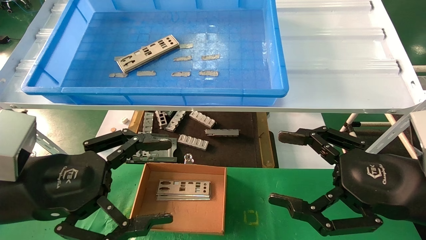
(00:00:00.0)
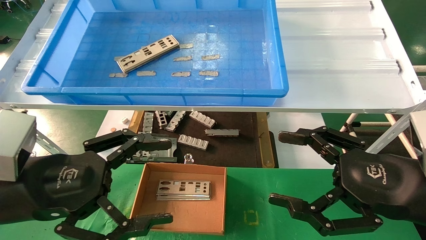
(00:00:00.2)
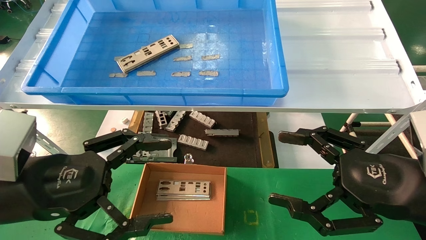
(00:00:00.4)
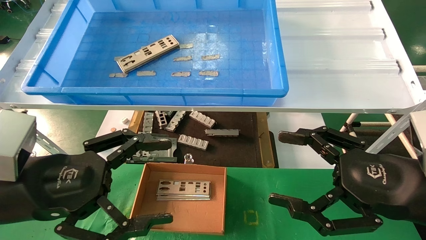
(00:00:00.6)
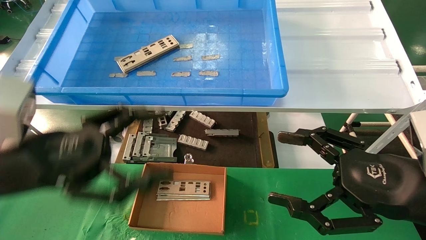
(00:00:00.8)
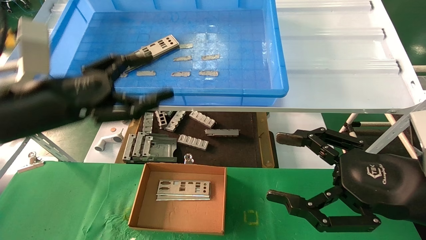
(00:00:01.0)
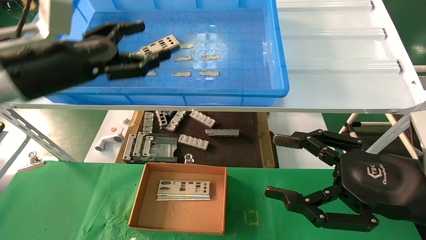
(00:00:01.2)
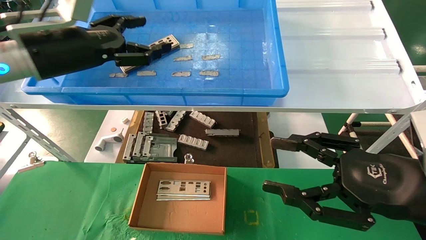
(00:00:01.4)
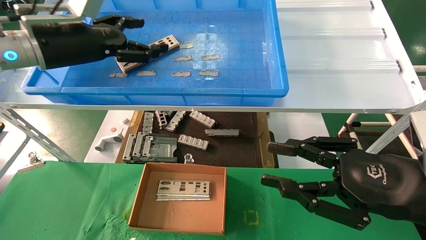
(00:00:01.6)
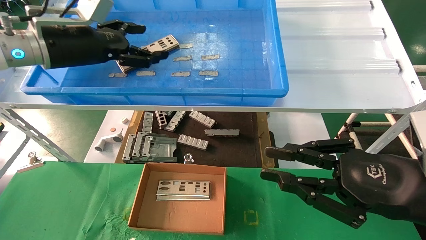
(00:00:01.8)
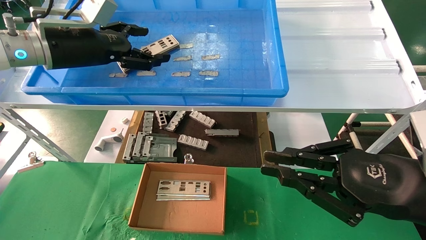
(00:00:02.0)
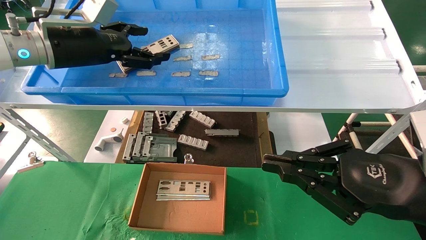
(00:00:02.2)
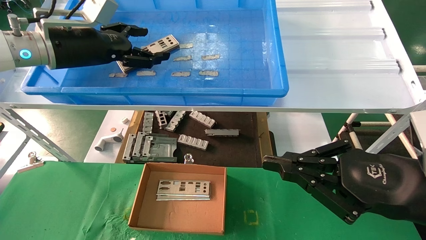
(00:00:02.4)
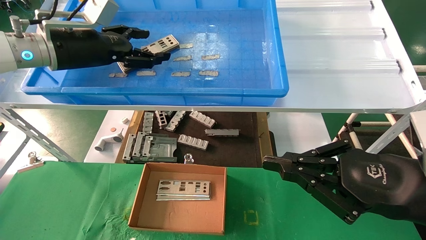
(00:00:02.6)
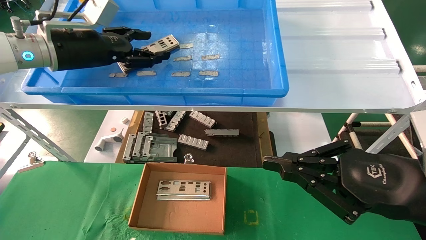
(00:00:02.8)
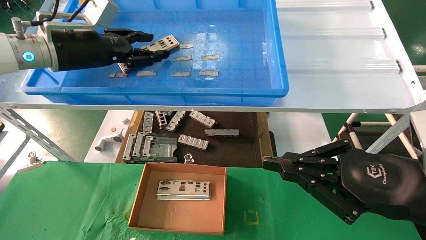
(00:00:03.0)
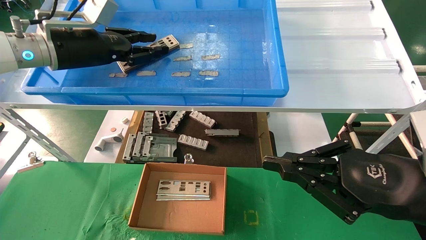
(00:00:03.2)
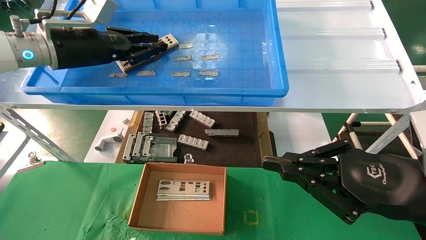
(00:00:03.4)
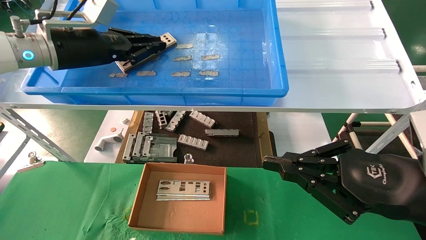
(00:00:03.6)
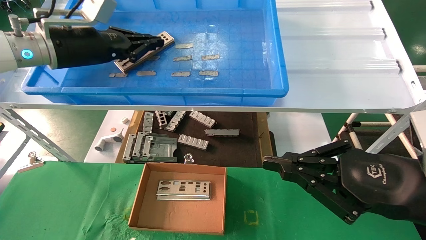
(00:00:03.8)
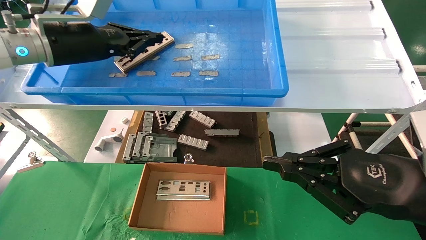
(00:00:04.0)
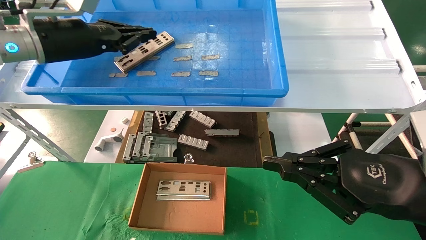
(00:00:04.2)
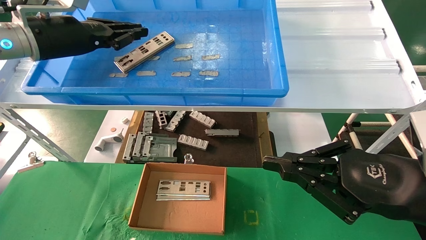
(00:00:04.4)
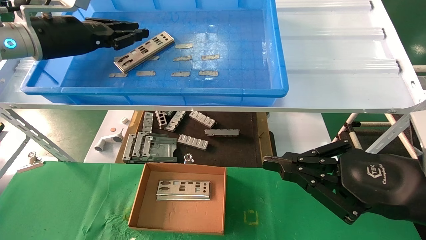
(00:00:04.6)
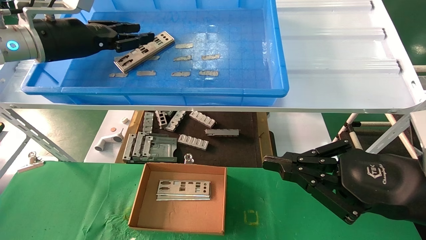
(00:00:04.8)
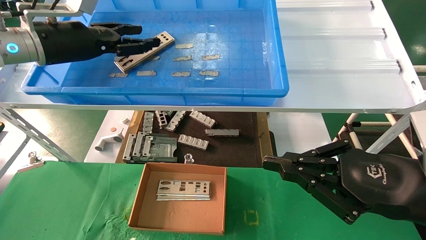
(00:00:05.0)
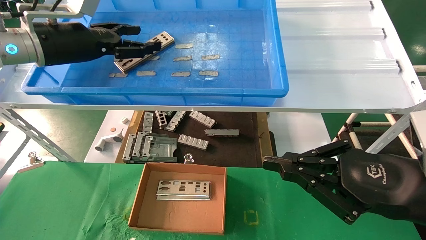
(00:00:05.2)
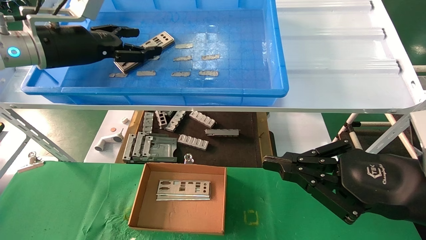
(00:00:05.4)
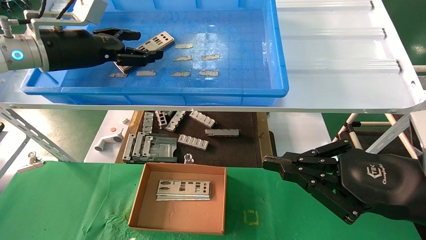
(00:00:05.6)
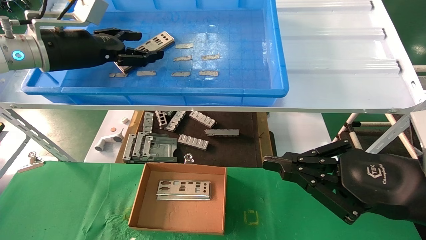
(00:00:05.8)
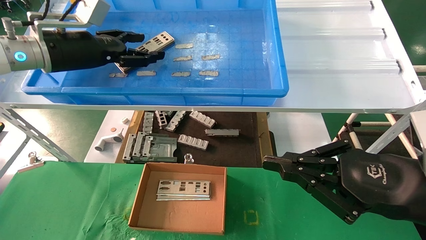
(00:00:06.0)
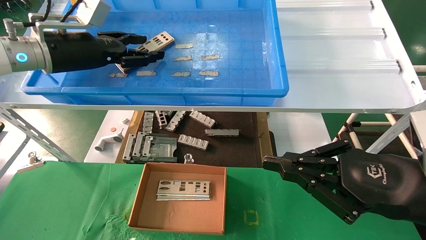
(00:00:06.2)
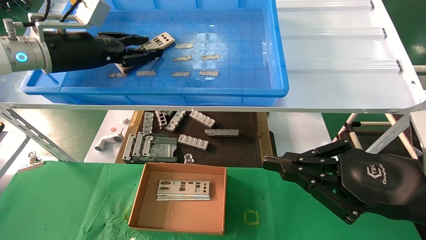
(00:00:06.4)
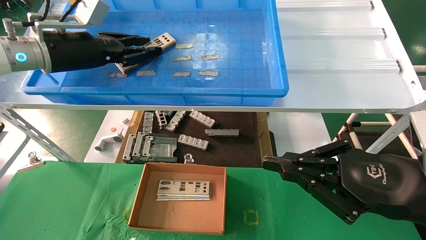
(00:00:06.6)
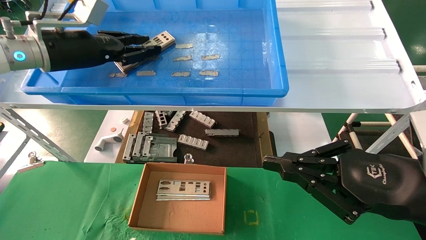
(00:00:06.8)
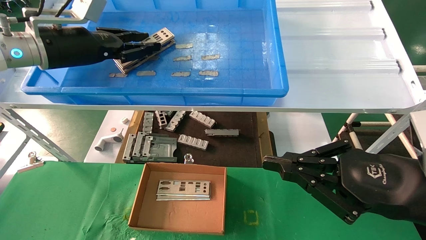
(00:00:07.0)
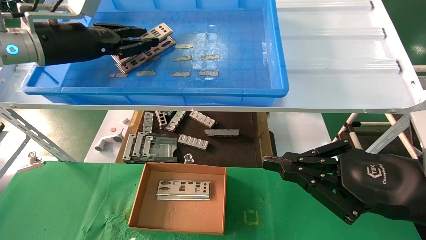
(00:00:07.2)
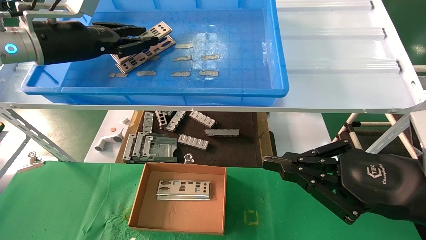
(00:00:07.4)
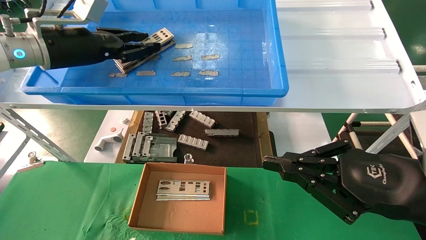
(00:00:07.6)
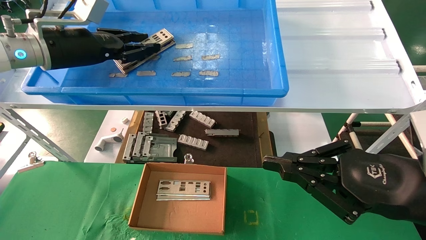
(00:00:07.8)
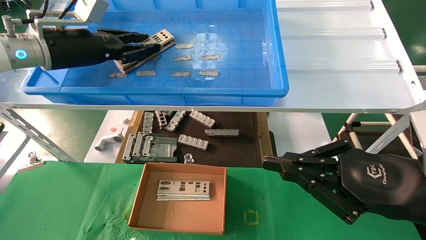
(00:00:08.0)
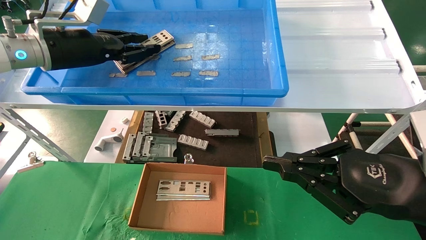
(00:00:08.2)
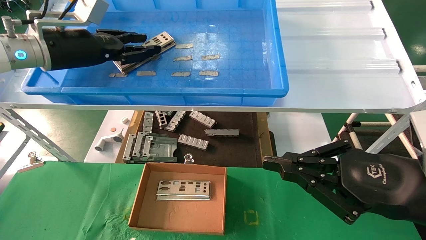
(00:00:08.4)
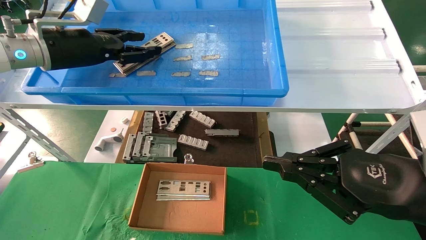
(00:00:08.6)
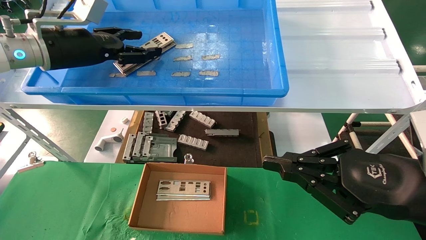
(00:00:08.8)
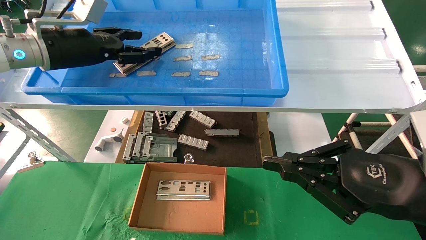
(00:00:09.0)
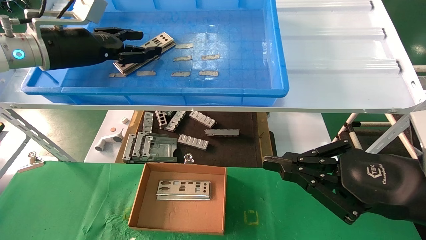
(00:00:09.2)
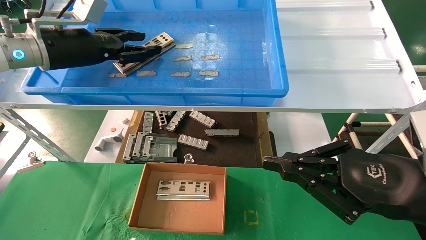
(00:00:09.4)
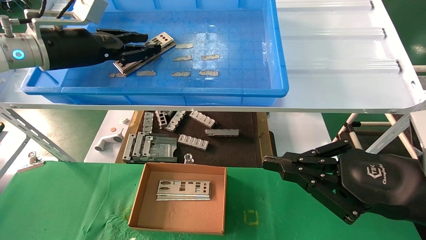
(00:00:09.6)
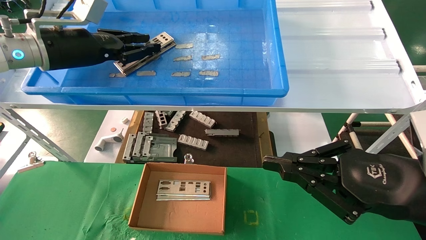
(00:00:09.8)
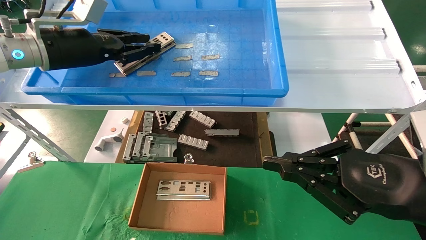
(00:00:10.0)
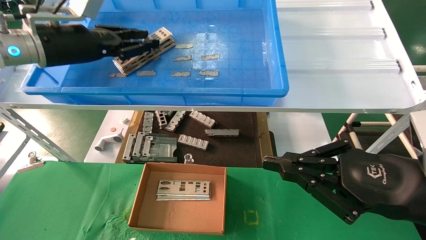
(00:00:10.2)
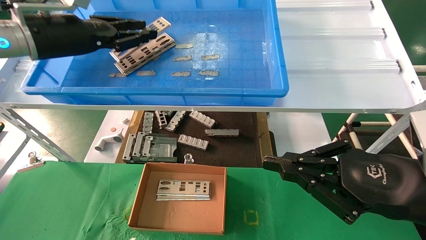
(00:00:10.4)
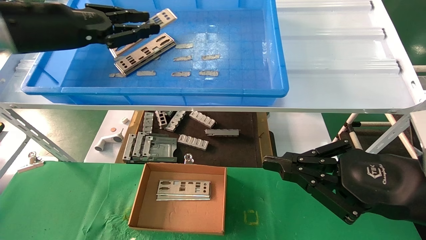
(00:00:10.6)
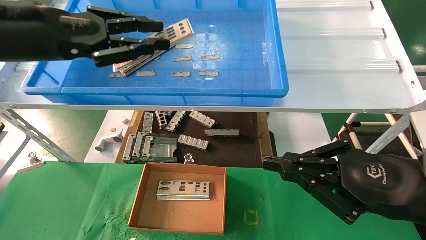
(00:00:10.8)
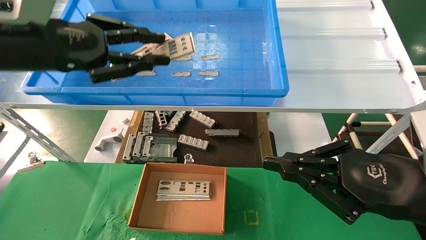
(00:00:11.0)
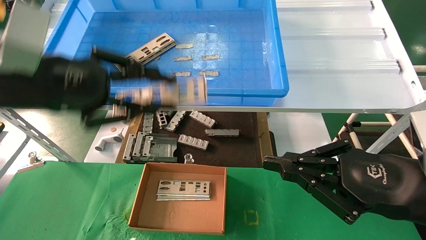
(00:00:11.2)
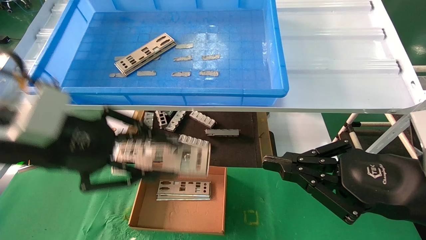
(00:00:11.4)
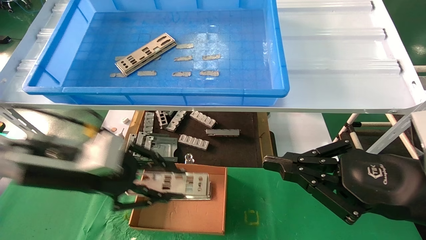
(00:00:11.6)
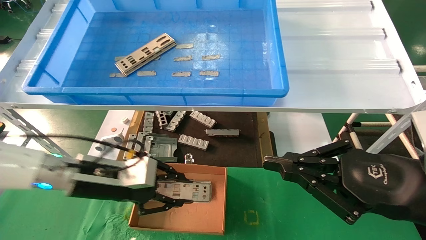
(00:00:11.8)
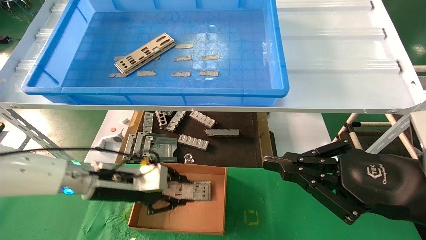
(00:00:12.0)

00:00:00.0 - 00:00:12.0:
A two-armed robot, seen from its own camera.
Task of the whole recording: pick up the parts on the tray and put them in the cardboard box.
Step, 00:00:01.0 - 00:00:10.0: Pick up the IO bracket from the container box.
00:00:00.0 - 00:00:01.6: The right gripper closes; the left gripper goes approximately 25 cm forward and upward.
00:00:01.6 - 00:00:03.0: The right gripper closes.
00:00:03.0 - 00:00:04.4: The left gripper closes up.
00:00:04.4 - 00:00:06.0: The left gripper opens its fingers.
00:00:06.0 - 00:00:07.6: The left gripper closes up.
00:00:07.6 - 00:00:09.0: The left gripper opens up.
00:00:09.0 - 00:00:10.4: The left gripper closes.
00:00:10.4 - 00:00:12.0: The left gripper heads downward, covering about 25 cm.

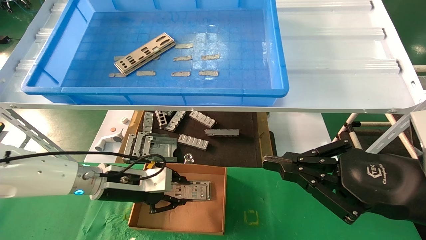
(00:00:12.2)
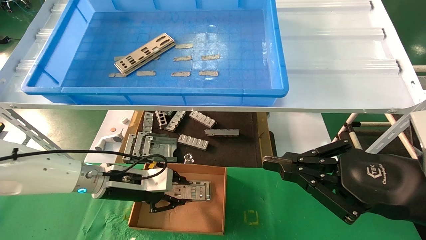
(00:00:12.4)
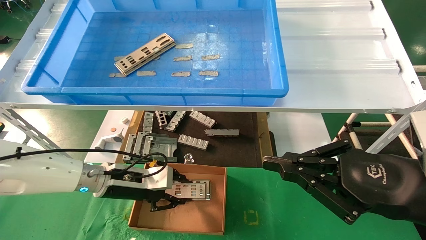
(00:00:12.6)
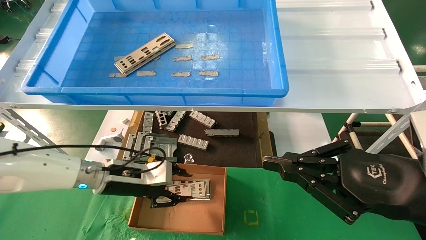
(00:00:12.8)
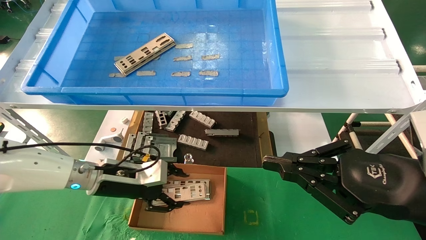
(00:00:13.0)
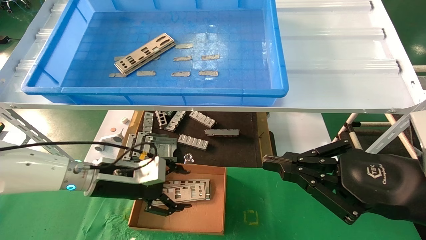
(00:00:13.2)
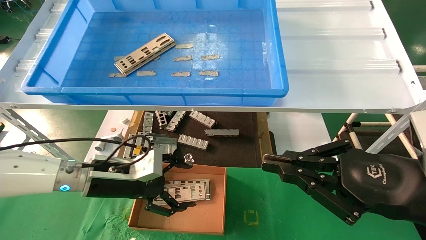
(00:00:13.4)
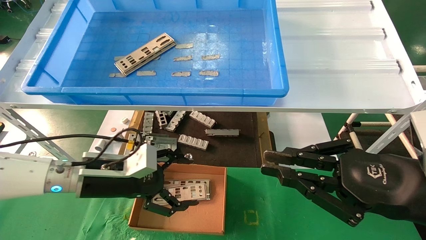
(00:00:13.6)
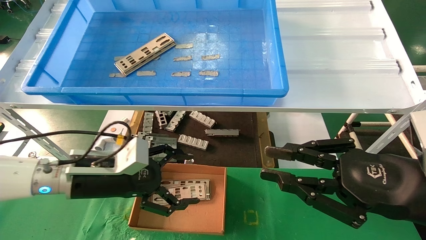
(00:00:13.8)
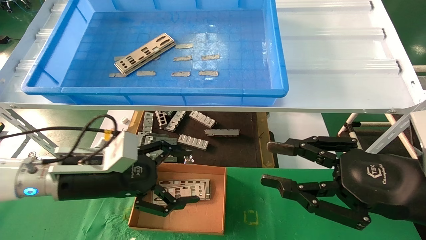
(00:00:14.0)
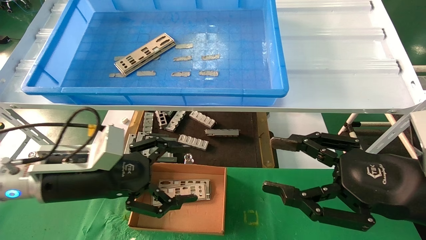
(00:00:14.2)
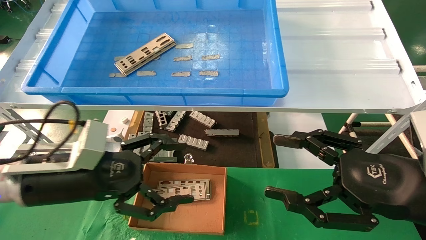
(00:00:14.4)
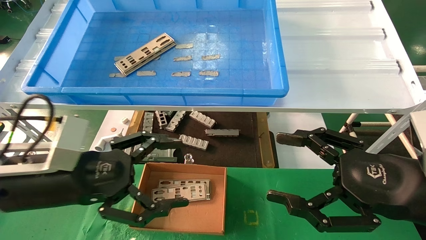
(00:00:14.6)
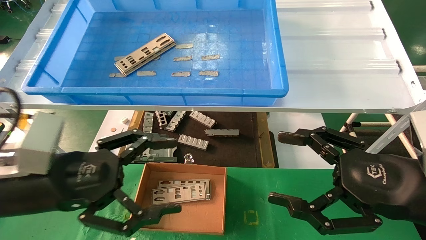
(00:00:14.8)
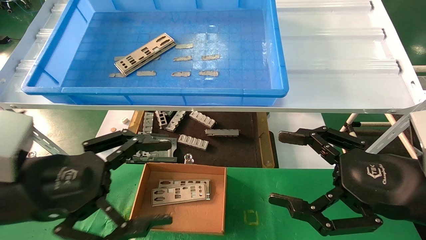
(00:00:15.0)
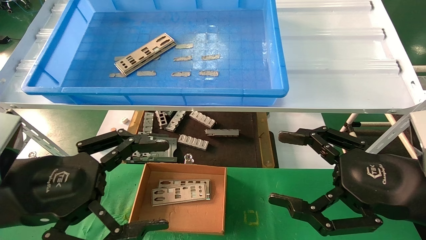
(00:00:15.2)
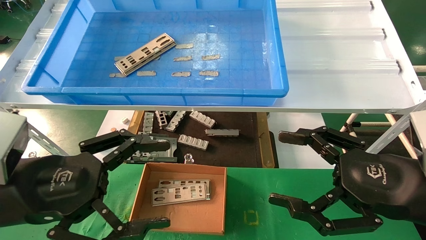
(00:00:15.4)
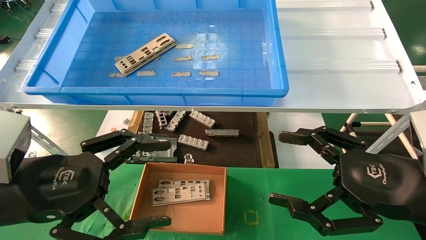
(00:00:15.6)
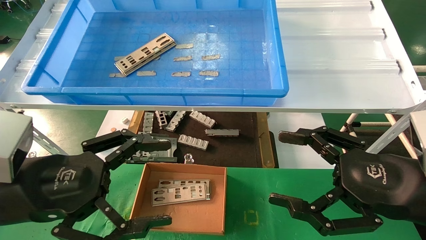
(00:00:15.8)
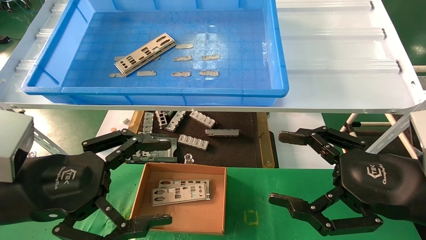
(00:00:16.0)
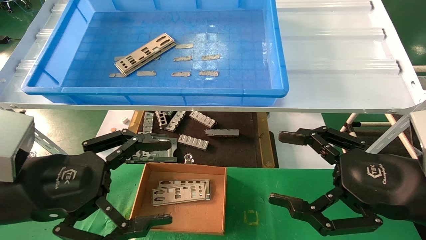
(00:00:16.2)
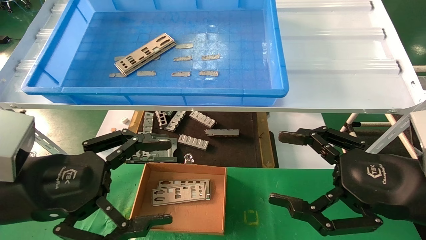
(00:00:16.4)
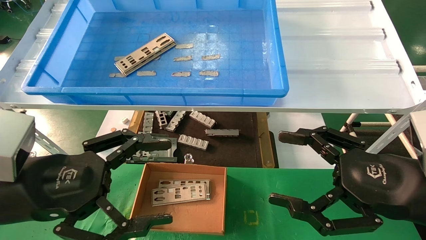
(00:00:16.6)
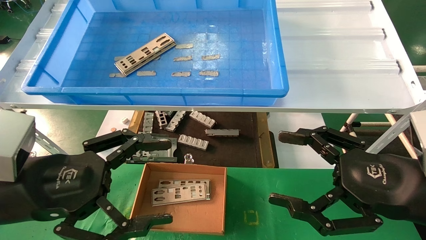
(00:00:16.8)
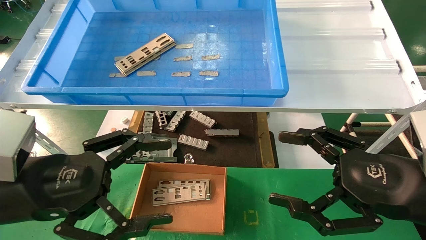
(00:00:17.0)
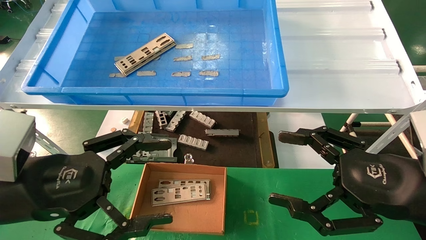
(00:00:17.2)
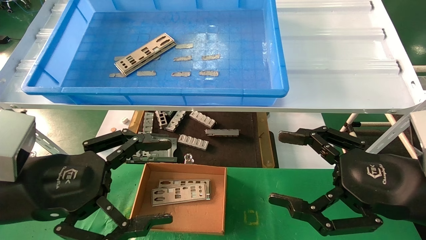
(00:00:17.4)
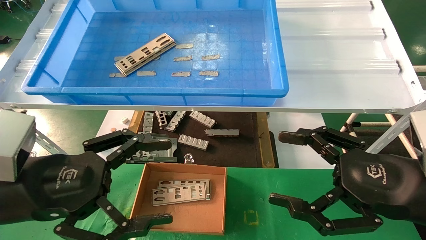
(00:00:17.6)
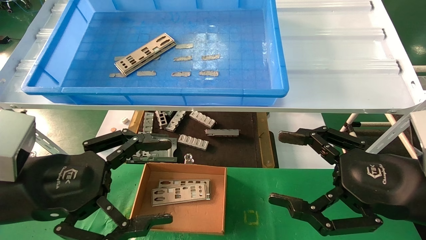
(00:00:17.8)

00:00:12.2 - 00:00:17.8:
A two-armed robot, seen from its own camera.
Task of the whole recording: pick up the parts on the tray and put them in the cardboard box.
00:00:12.2 - 00:00:13.6: The left gripper opens.
00:00:13.6 - 00:00:15.0: The left gripper shifts approximately 15 cm backward and upward. The right gripper opens.
00:00:15.0 - 00:00:17.8: The two grippers keep their place.
